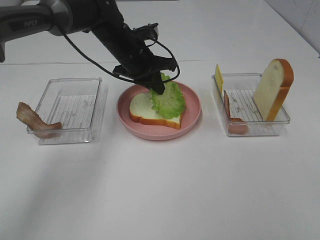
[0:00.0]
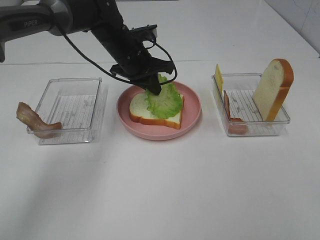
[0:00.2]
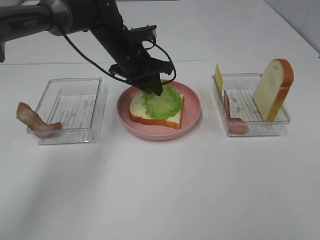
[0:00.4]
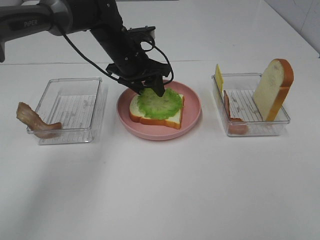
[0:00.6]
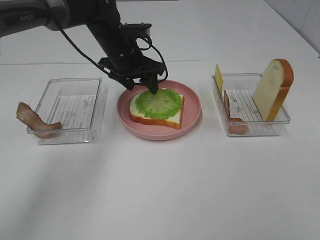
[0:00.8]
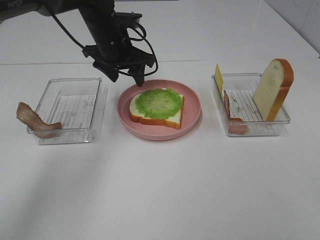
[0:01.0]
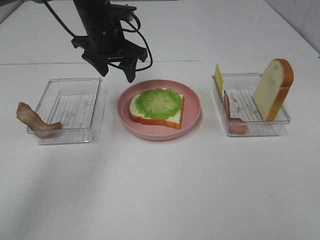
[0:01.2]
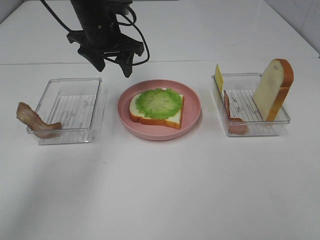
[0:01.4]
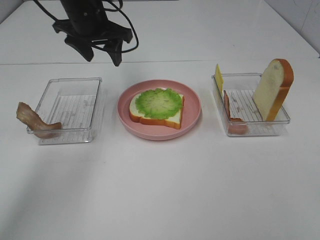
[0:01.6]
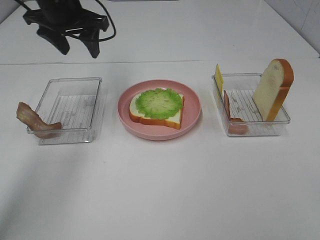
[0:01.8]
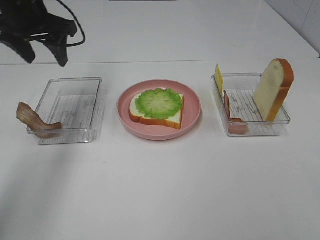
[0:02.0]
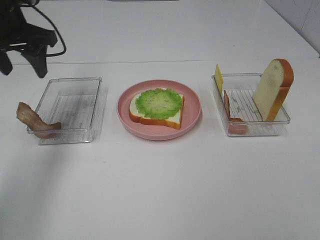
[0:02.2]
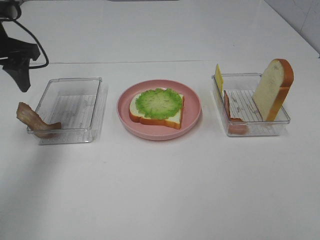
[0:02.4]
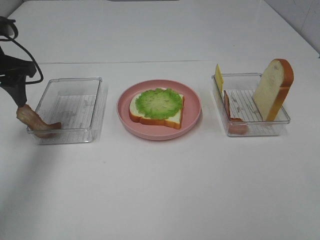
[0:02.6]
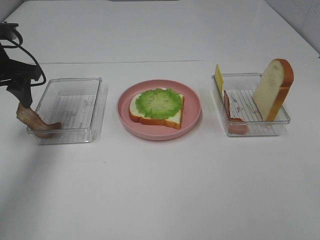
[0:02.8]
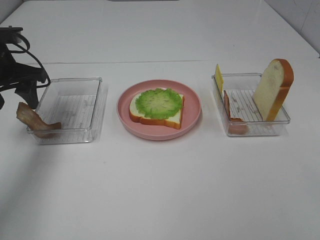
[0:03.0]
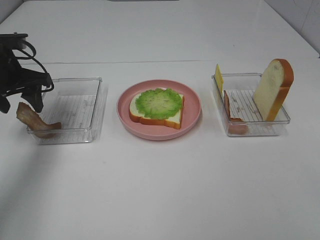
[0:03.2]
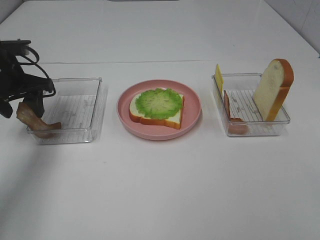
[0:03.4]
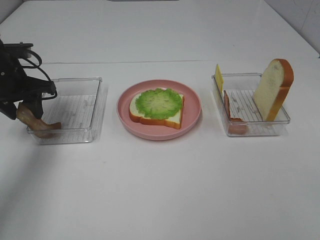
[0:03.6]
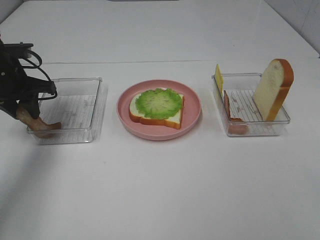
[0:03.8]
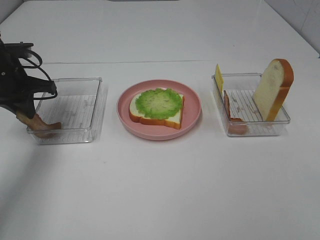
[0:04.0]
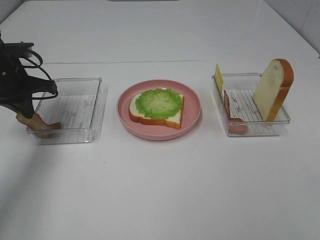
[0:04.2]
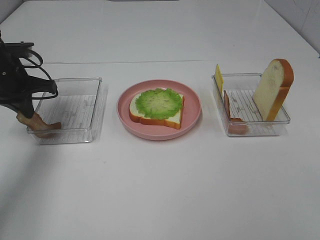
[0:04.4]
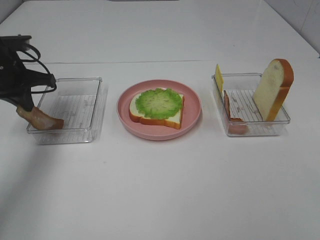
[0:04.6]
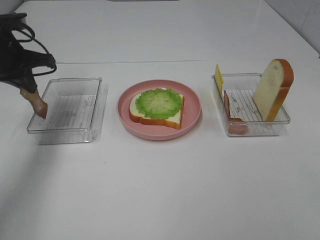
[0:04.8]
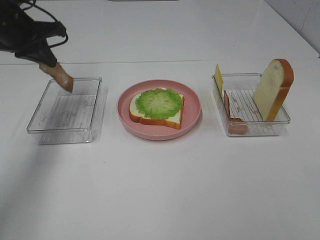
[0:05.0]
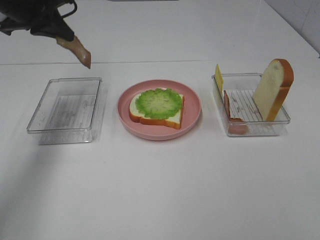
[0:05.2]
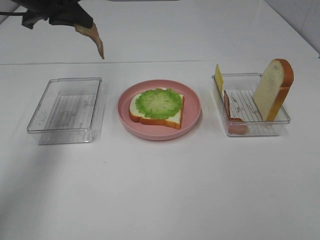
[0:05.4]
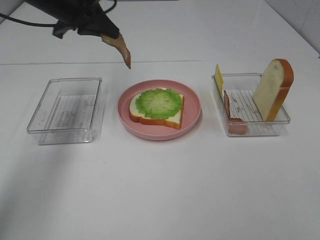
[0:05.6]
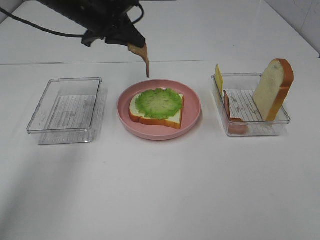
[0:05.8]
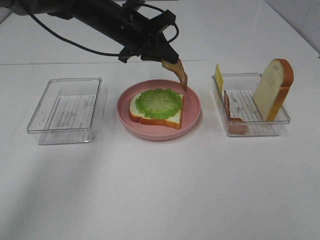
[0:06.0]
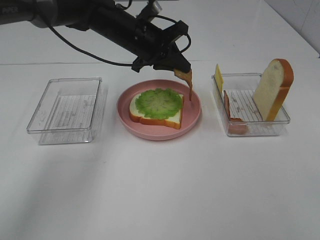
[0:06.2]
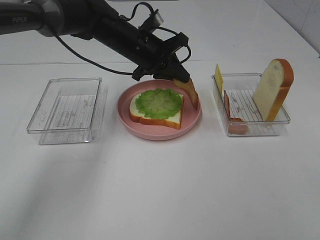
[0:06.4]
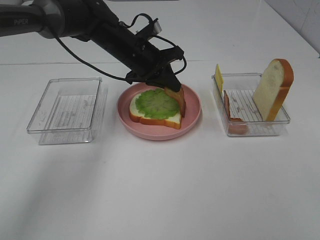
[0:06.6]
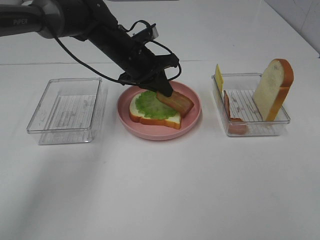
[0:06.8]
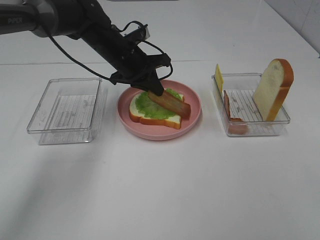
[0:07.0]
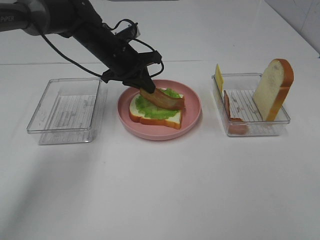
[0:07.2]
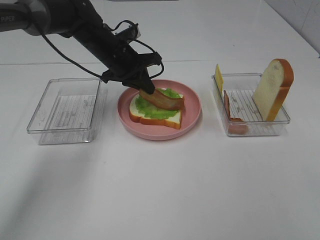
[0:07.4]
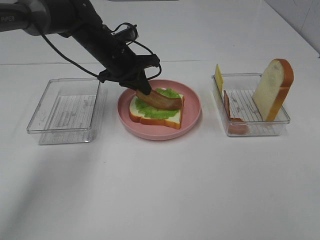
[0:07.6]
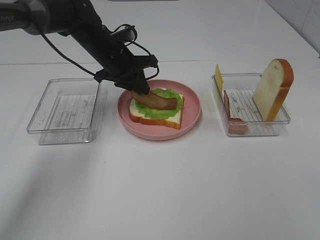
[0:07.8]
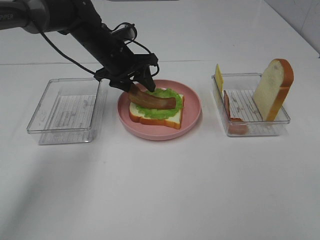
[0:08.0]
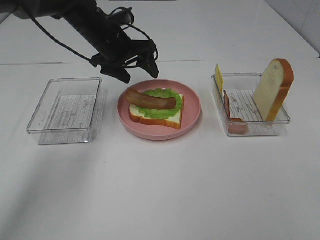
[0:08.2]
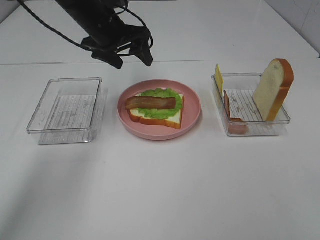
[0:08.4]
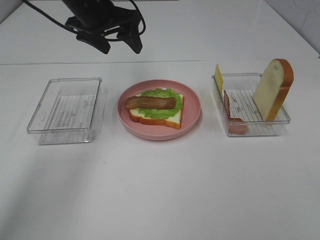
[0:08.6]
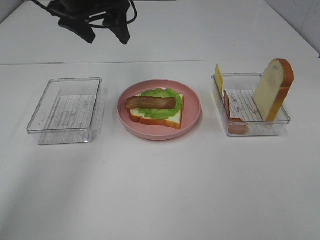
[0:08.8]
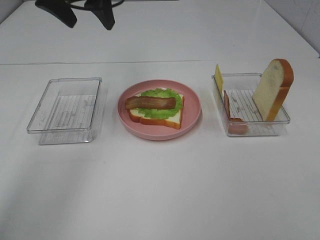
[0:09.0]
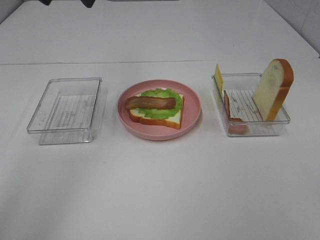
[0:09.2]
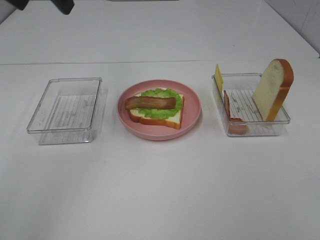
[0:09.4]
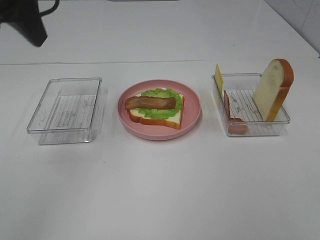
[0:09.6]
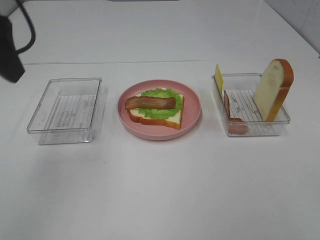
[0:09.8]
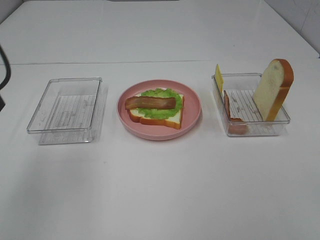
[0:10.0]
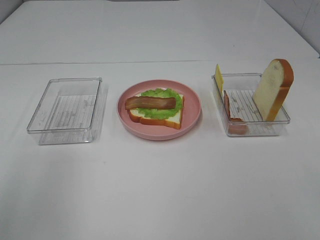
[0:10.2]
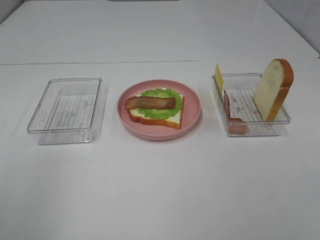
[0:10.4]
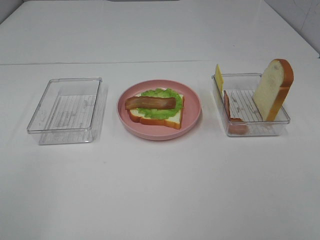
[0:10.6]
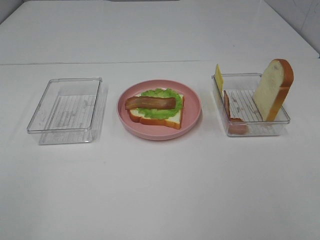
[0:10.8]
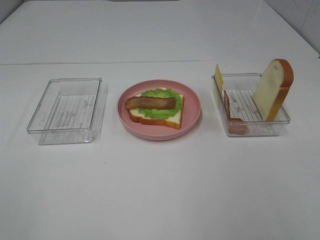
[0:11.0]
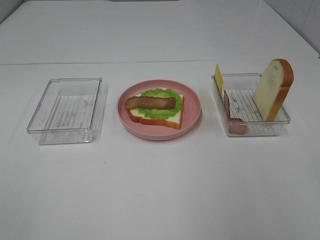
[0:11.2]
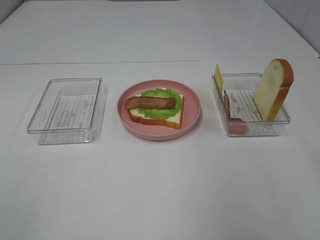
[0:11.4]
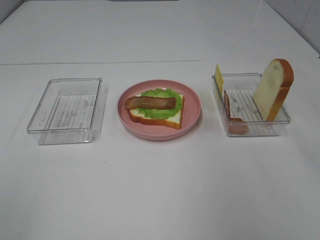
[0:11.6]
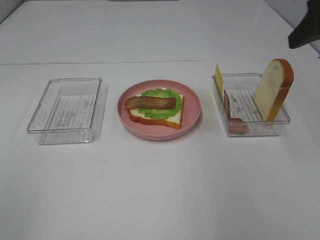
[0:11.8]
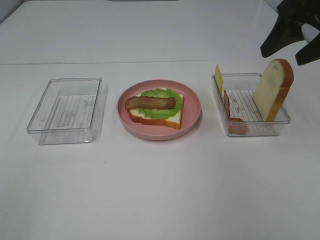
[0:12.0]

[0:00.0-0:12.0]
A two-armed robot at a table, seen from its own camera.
Task of the whole recording: Make sandwiches.
Step, 1.8 to 4.4 s: Left hand:grab the bacon.
Step, 4.6 to 8.2 s: Left hand:place bacon on lettuce slice.
0.0 to 1.6 s: The left gripper goes approximately 10 cm upward and to the left, and opens up.
1.6 to 3.0 s: The left gripper goes about 15 cm to the left and backward.
3.0 to 4.4 s: The left gripper closes.
4.4 to 6.0 s: The left gripper heads to the right, covering about 20 cm.
6.0 to 7.6 s: The left gripper travels downward by approximately 5 cm.
7.6 to 9.0 s: The left gripper travels upward by some 20 cm, and opens its fingers.
9.0 to 10.4 s: The left gripper is displaced backward by approximately 30 cm.
10.4 to 12.0 s: The right gripper shifts some 35 cm forward.

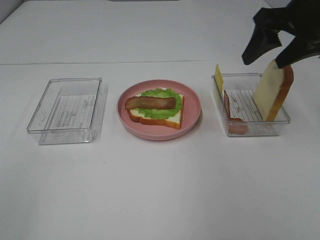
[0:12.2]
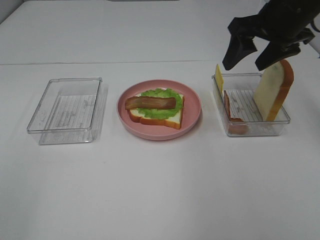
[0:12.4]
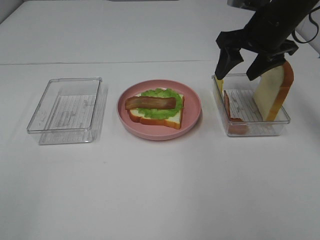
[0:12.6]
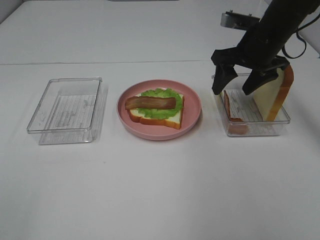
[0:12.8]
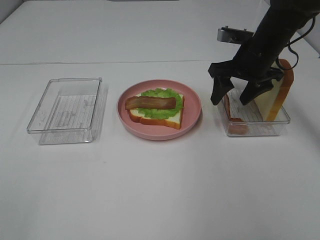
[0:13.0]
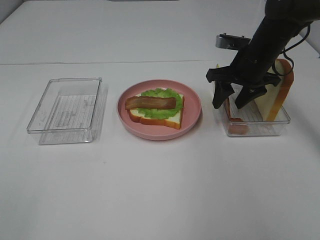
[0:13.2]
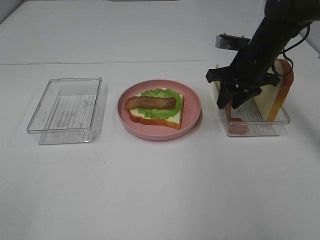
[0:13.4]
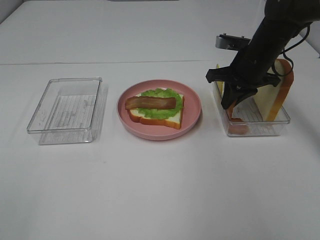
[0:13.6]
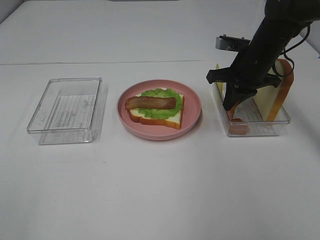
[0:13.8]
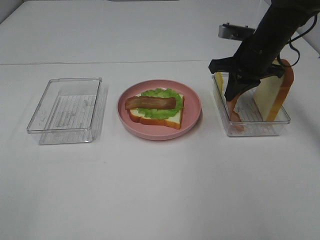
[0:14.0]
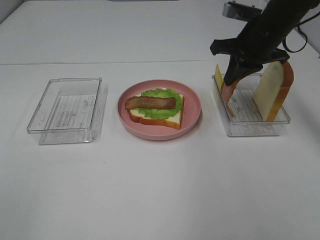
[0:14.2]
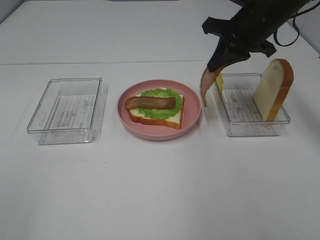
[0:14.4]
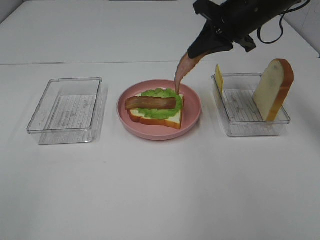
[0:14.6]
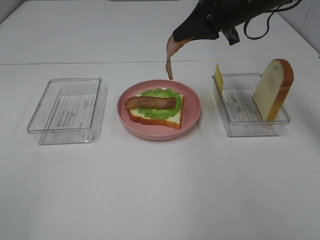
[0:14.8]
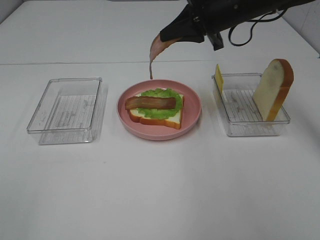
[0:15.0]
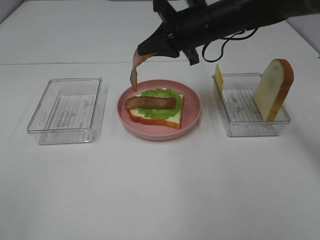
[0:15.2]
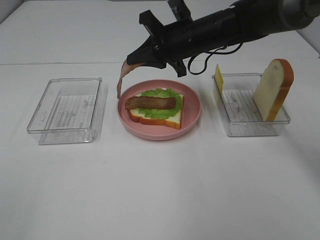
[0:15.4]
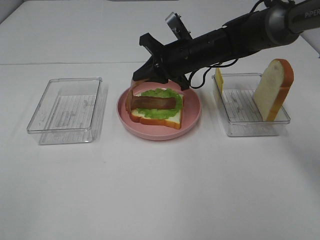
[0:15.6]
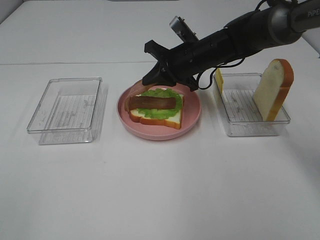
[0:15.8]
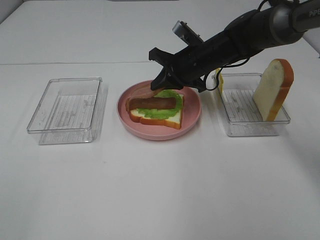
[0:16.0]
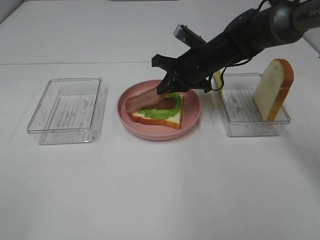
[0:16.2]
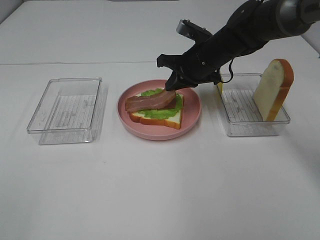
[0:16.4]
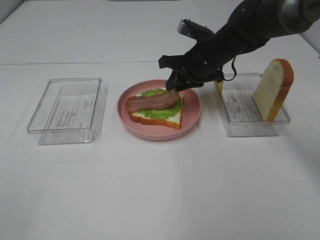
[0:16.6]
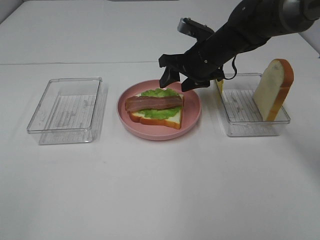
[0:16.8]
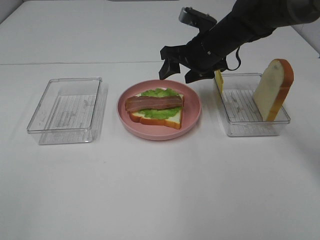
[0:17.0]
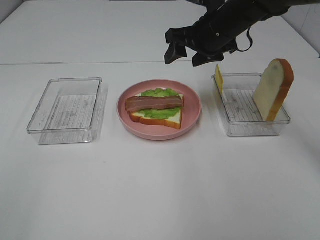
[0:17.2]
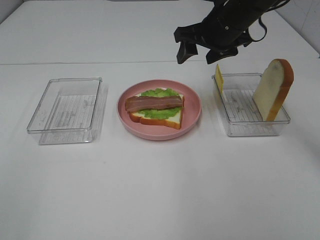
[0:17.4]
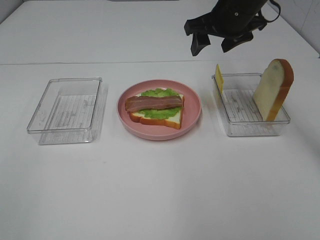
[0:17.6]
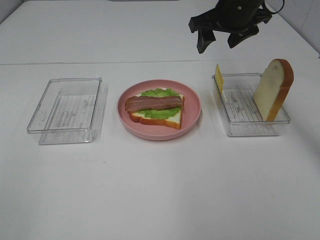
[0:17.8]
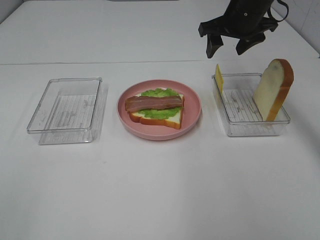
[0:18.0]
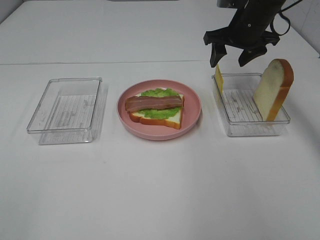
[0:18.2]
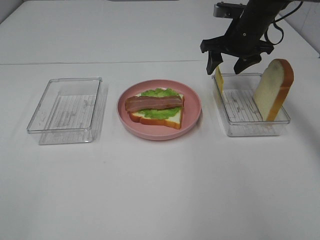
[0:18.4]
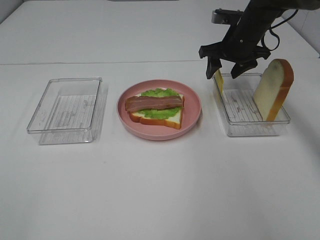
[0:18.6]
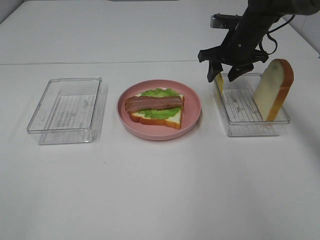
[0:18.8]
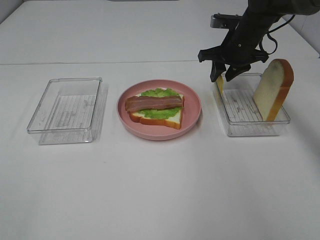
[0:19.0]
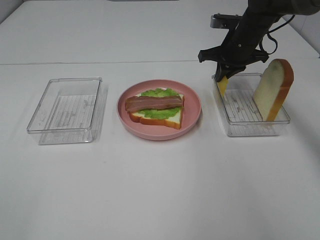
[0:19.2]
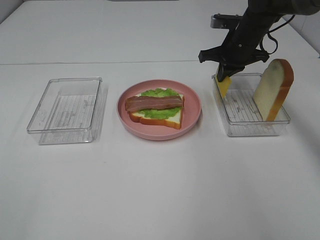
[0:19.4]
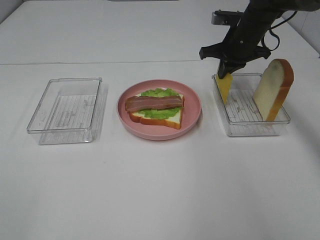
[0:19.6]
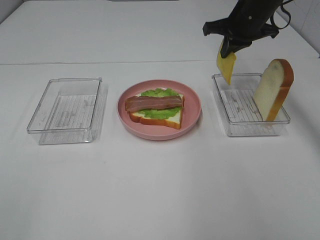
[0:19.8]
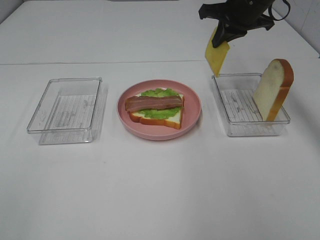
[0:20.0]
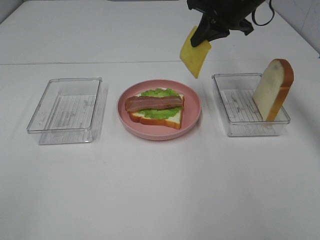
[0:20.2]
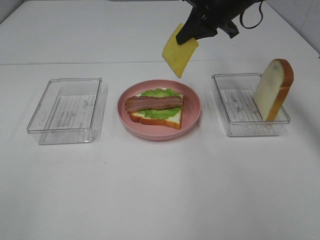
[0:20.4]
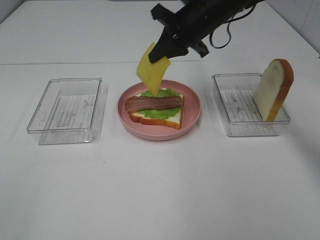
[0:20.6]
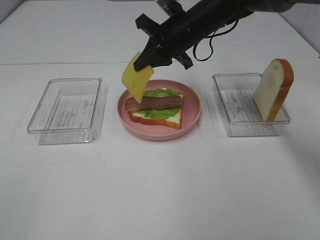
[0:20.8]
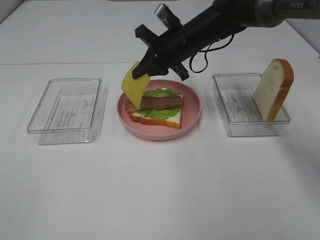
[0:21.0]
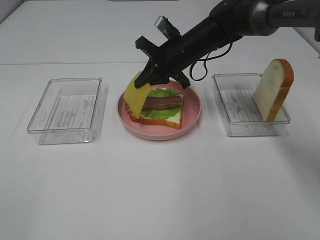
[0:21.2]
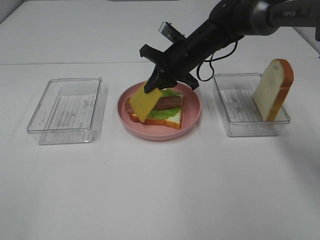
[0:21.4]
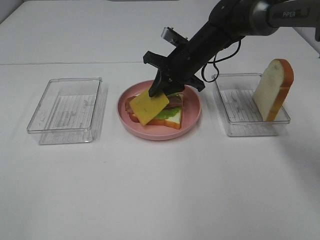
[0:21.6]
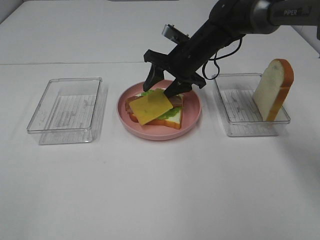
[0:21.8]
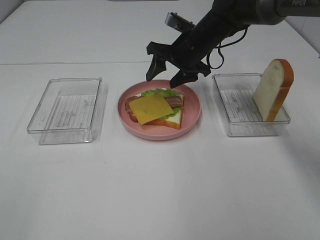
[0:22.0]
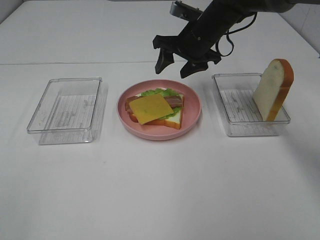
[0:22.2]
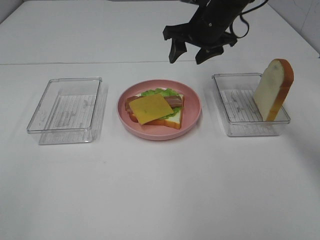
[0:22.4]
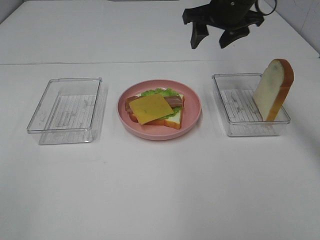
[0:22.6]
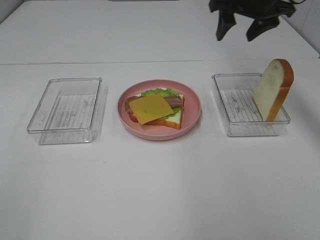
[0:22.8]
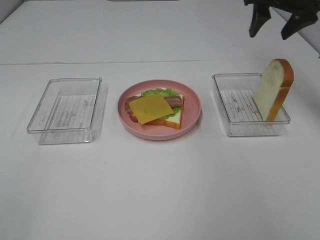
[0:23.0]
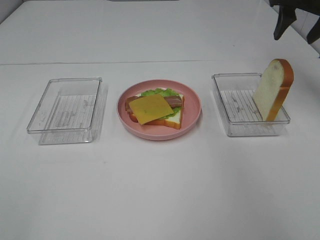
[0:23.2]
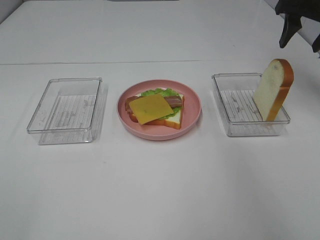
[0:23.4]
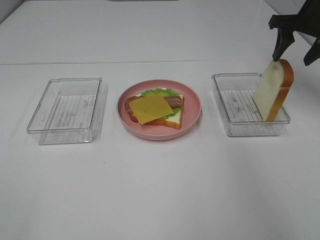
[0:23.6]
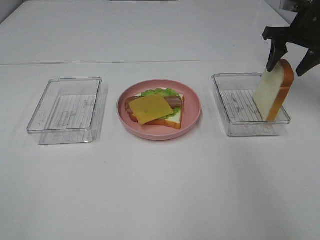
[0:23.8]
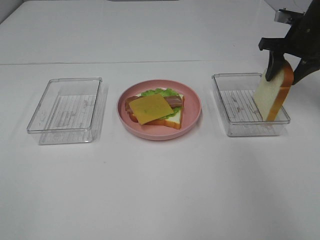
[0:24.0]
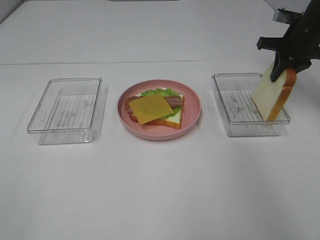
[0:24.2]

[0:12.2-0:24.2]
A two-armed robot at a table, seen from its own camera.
Task of the whole recording: Make sandwiches.
Step, 13.8 to 17.0 s: Right hand:place bacon on bacon.
Step, 17.2 to 19.2 s: Right hand:grab the cheese slice.
Step, 19.4 to 22.4 s: Right hand:place the cheese slice on top of the bacon.
12.2 to 13.8 s: The right gripper travels downward and forward by about 15 cm, and closes.
13.8 to 15.2 s: The right gripper moves to the left, roughly 10 cm.
15.2 to 16.6 s: The right gripper is displaced downward by roughly 5 cm, and opens up.
16.6 to 18.2 s: The right gripper heads to the right and upward, covering about 10 cm, and opens its fingers.
18.2 to 19.8 s: The right gripper closes.
19.8 to 21.2 s: The right gripper shifts roughly 15 cm to the left and downward.
21.2 to 22.6 s: The right gripper goes some 15 cm upward and to the right, and opens.
22.6 to 24.2 s: The right gripper moves to the right and downward, approximately 15 cm, and closes up.
